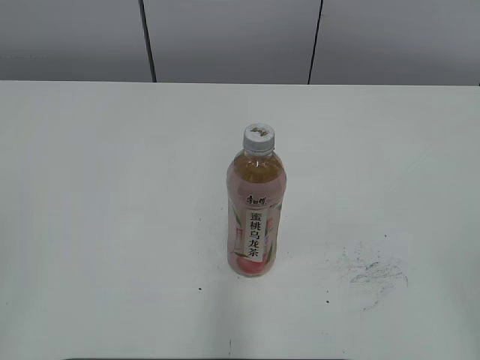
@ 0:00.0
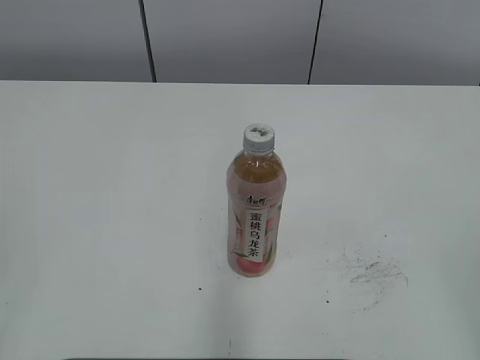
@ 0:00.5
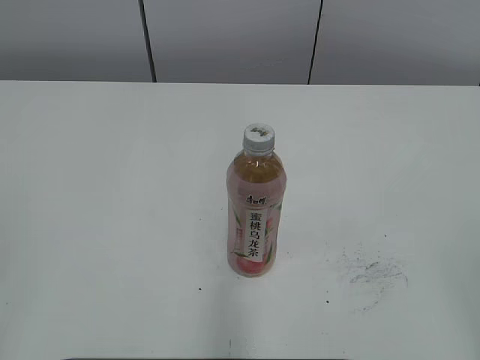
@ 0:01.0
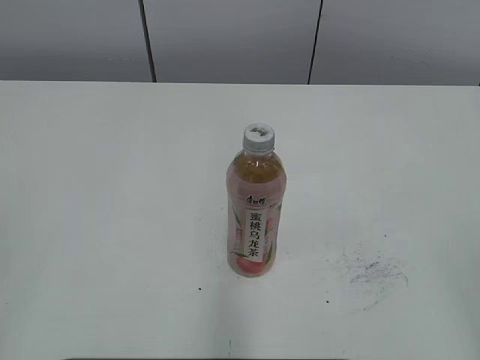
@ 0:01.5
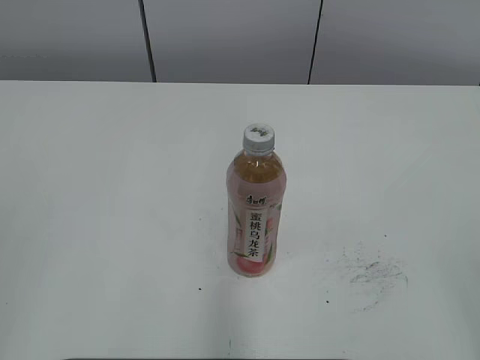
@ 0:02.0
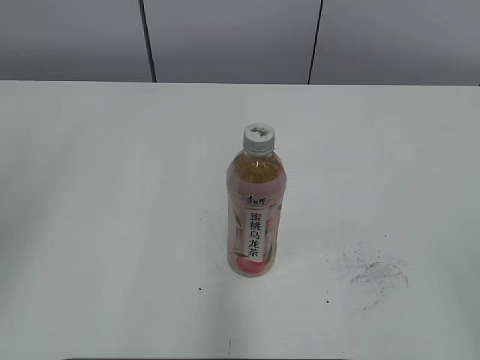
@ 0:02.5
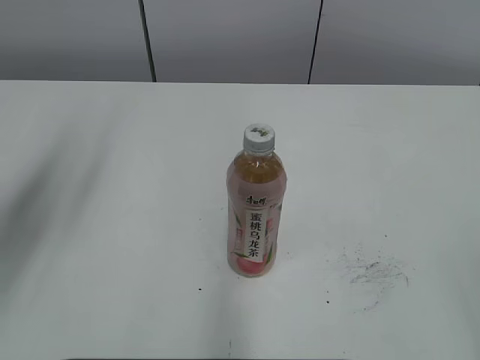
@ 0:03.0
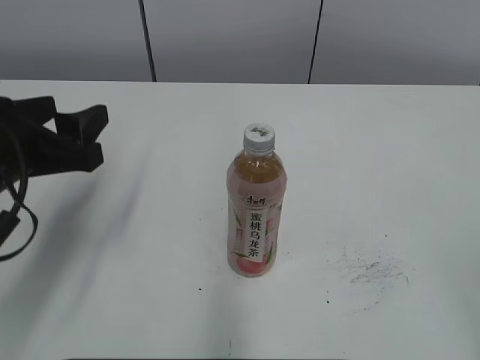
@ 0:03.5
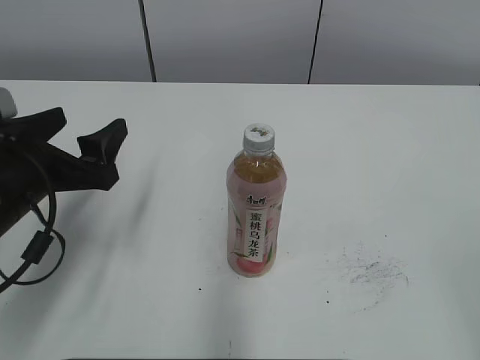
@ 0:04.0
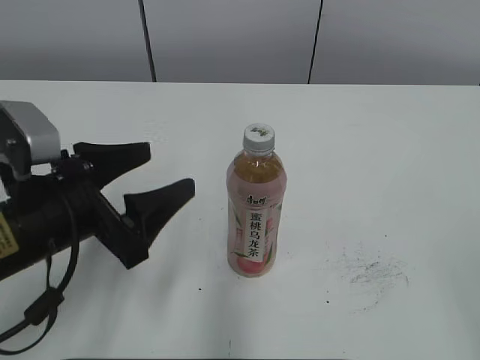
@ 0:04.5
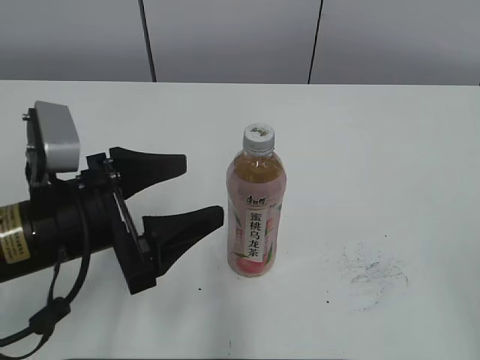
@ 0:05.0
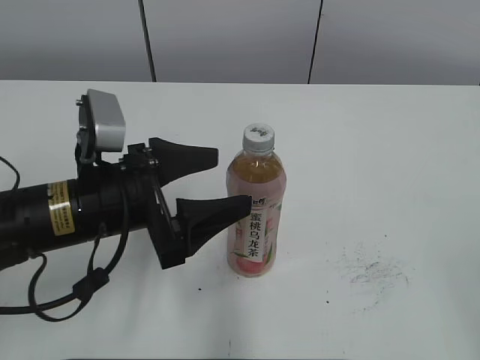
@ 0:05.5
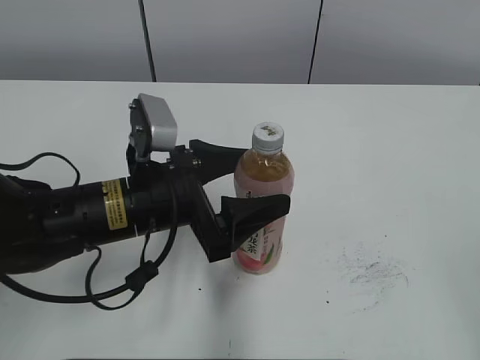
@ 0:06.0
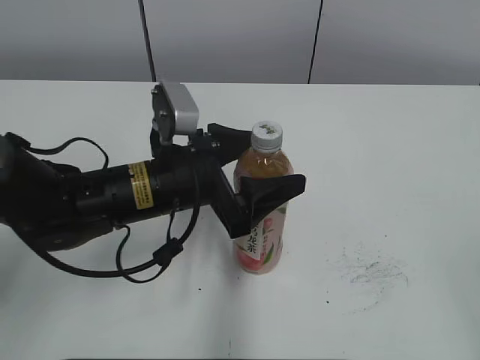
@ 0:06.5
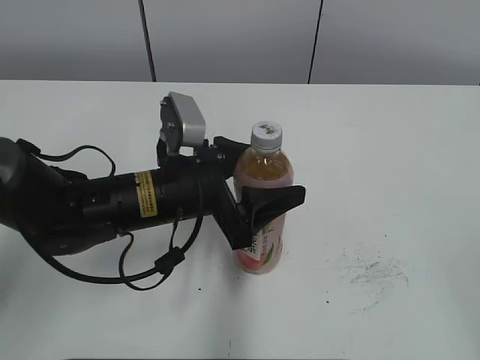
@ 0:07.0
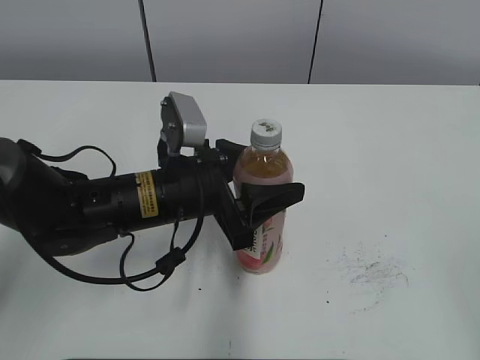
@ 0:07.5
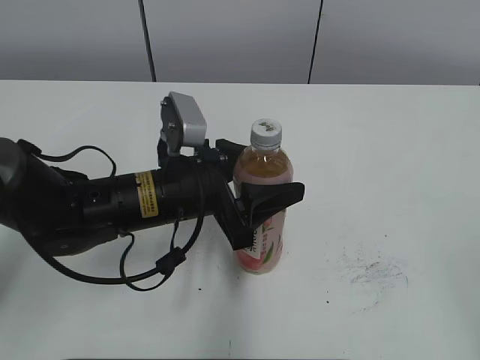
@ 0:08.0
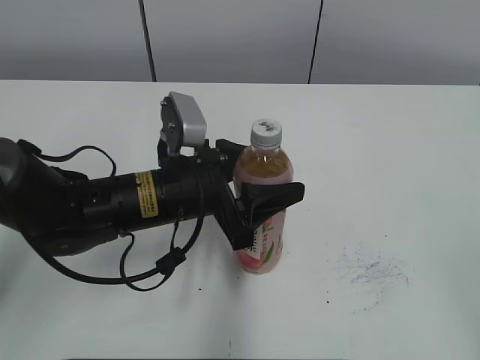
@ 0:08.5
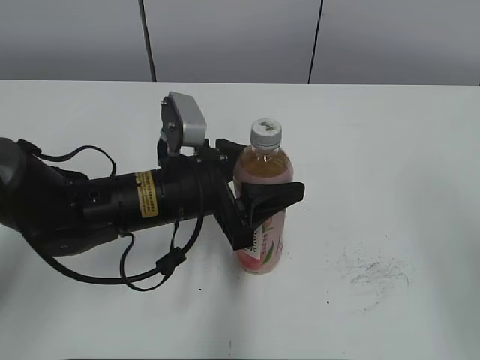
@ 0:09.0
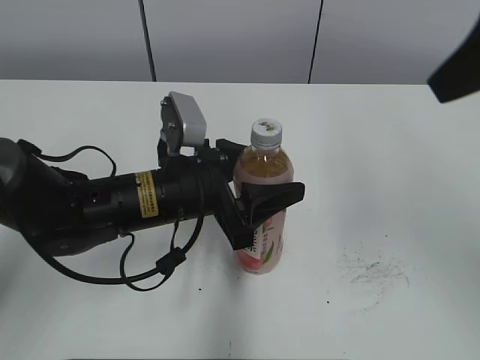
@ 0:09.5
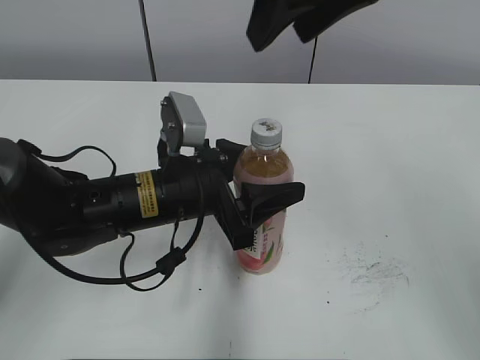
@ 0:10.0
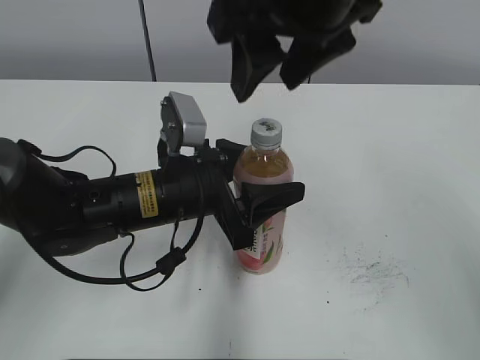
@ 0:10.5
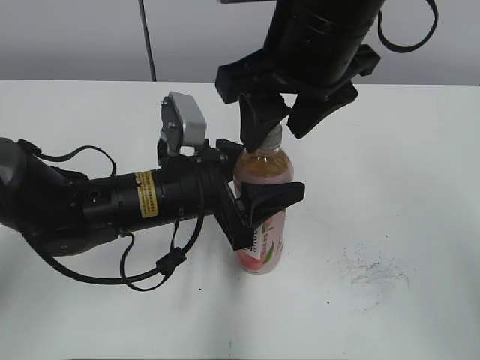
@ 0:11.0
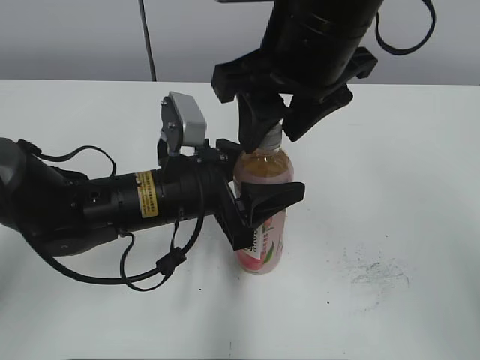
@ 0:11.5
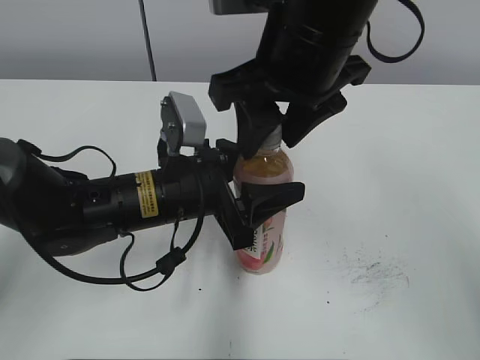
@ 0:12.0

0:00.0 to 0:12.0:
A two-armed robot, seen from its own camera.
Step, 0:00.0 to 0:07.5: Grab the Peach Oolong Tea with the left hand.
0:02.0 to 0:04.0: The left gripper travels forward and downward by some 25 cm, and opens up.
0:04.0 to 0:06.0: The left gripper heads to the right, covering some 10 cm.
0:06.0 to 0:08.0: The left gripper closes its fingers.
0:08.0 to 0:10.0: The right gripper goes some 35 cm forward and to the left, and closes up.
0:10.0 to 0:12.0: The right gripper is displaced downward by about 10 cm.

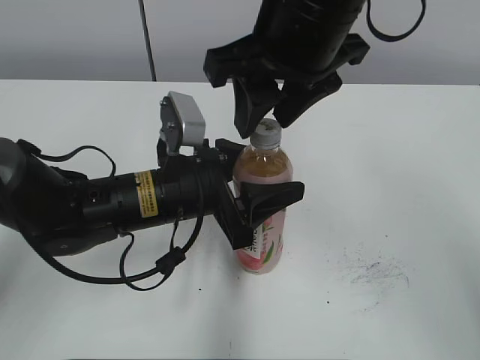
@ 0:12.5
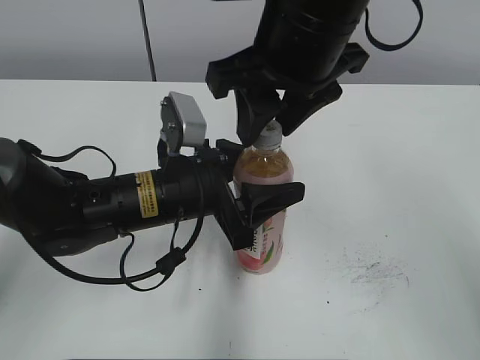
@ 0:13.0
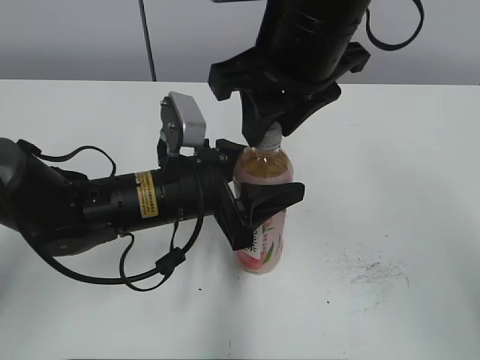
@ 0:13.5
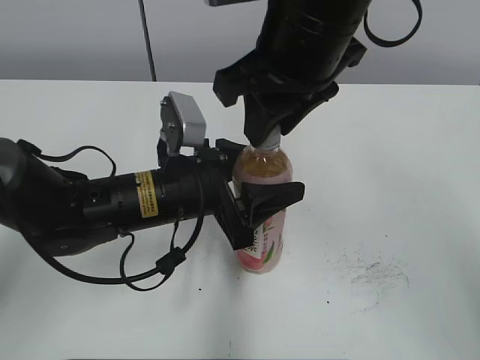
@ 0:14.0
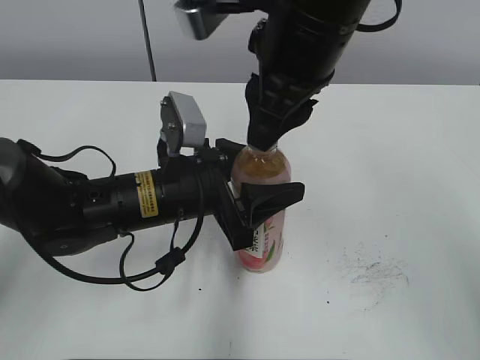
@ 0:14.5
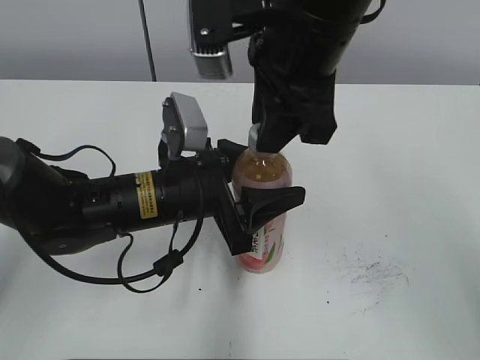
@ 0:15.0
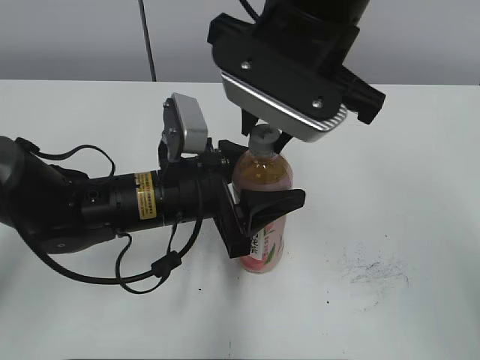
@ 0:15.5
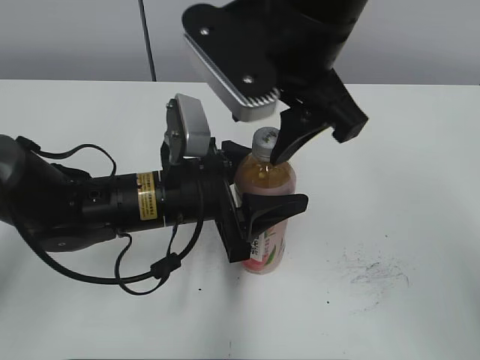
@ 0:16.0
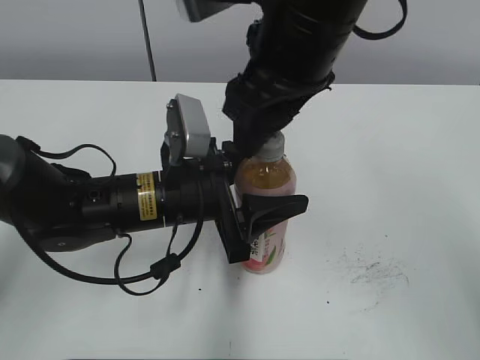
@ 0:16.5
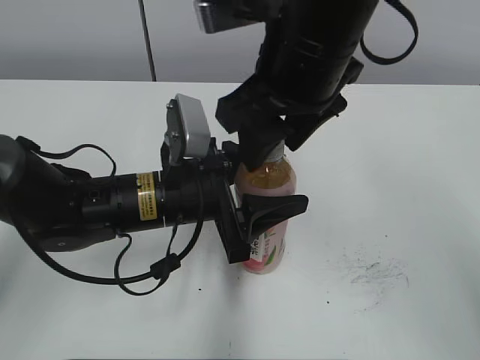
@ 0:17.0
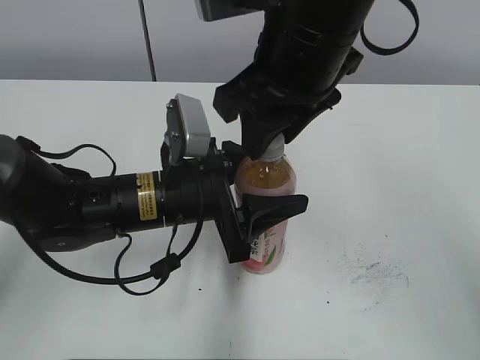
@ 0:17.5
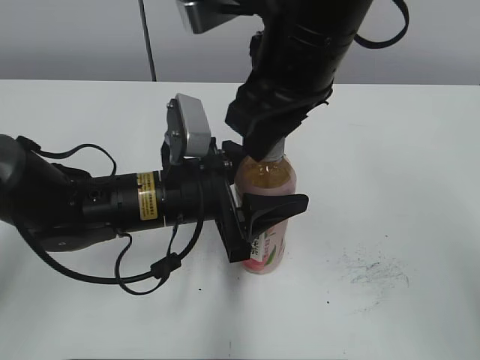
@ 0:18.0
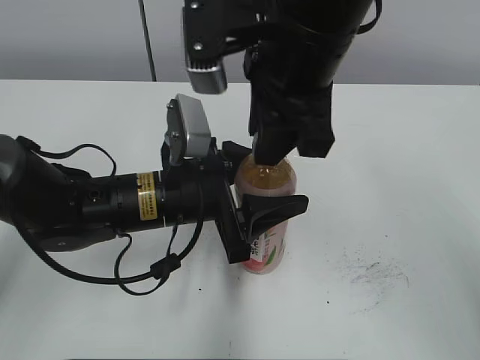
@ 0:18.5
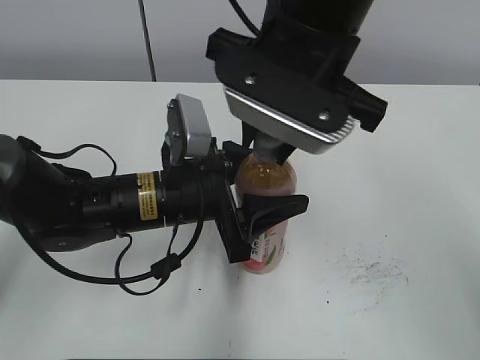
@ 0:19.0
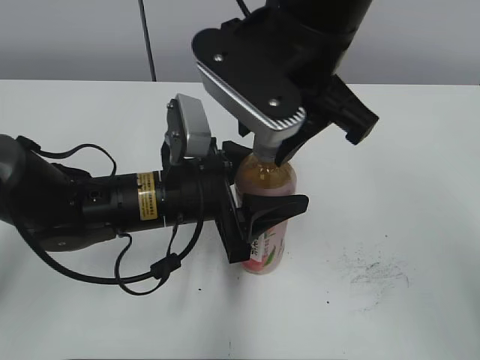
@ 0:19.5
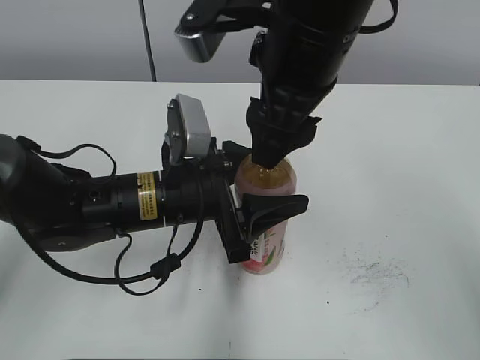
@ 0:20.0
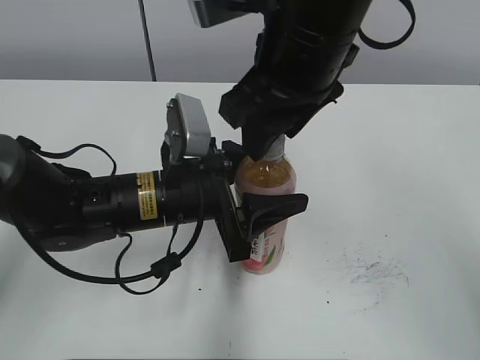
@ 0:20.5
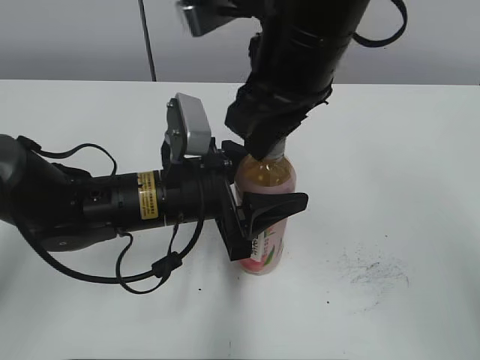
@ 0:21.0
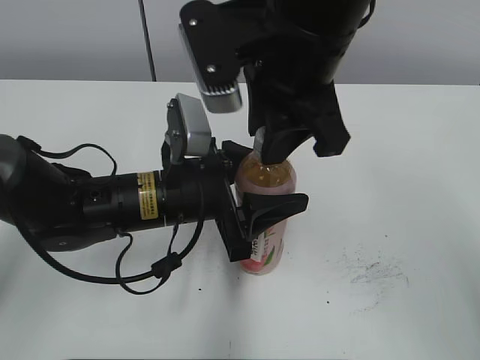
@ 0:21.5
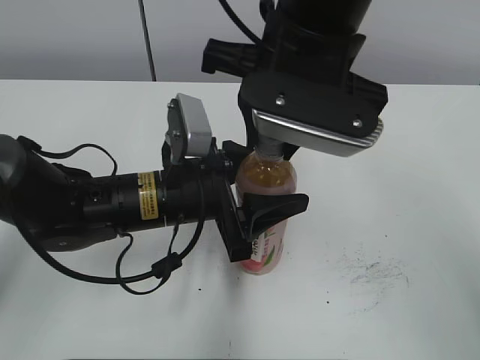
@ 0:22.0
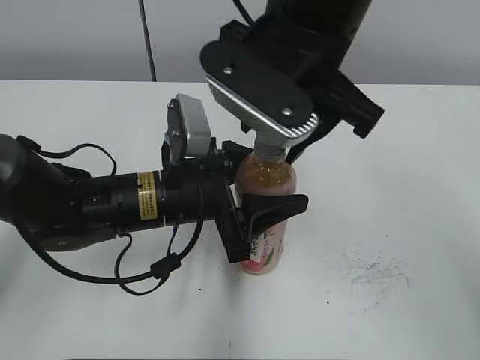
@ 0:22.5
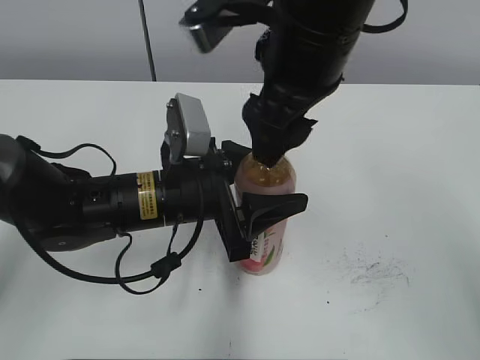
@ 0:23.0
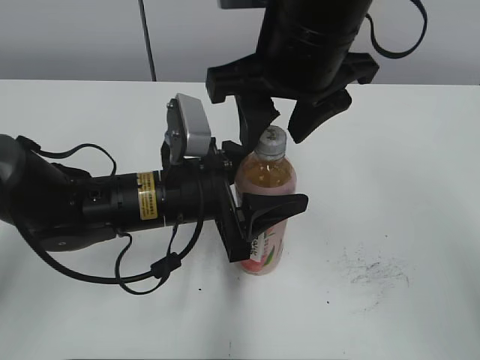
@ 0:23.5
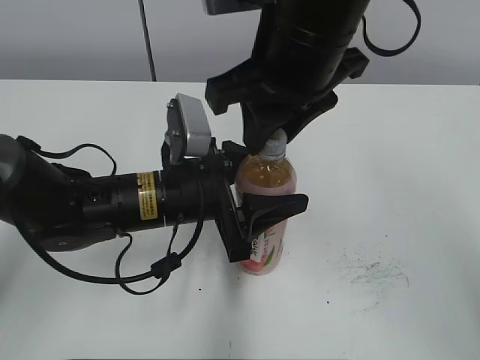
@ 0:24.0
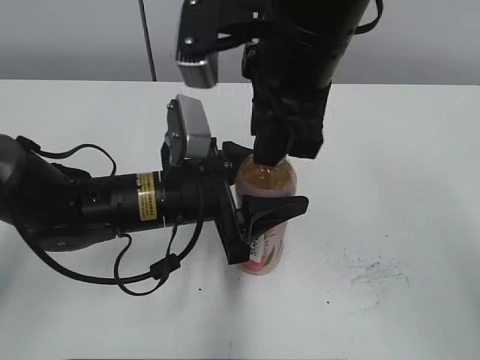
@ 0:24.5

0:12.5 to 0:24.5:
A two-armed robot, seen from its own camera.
0:12.5 to 0:14.5: The right gripper closes up.
0:14.5 to 0:16.5: The right gripper opens.
0:16.5 to 0:18.5: The right gripper closes its fingers.
0:18.5 to 0:20.5: The right gripper opens its fingers.
0:20.5 to 0:22.5: The right gripper closes, then reopens.
0:22.5 to 0:24.5: The right gripper closes its fingers.

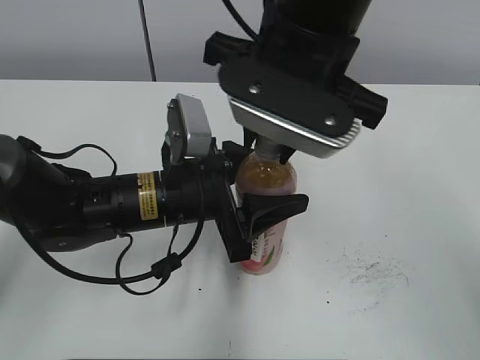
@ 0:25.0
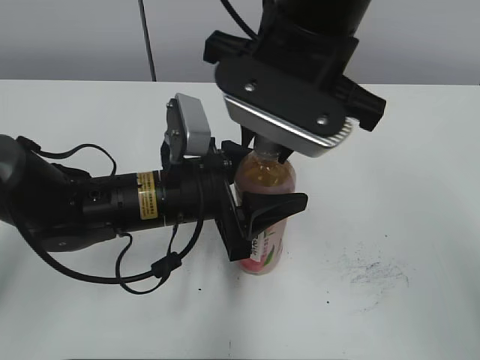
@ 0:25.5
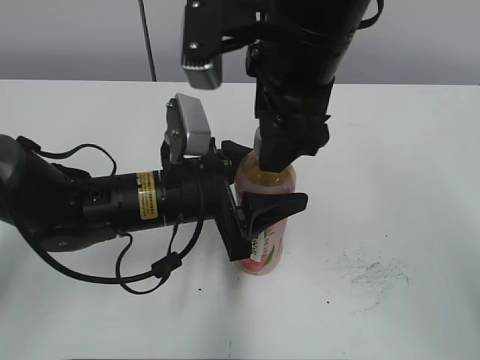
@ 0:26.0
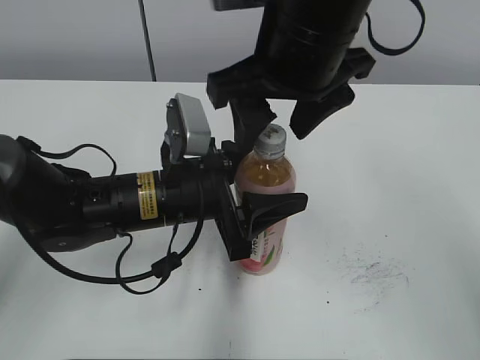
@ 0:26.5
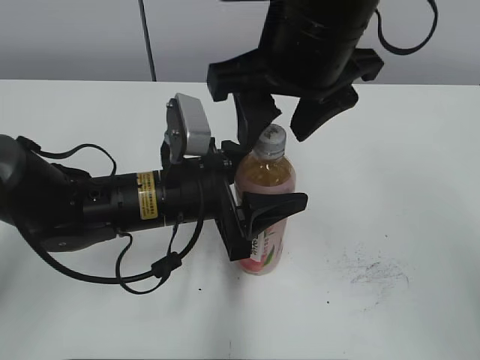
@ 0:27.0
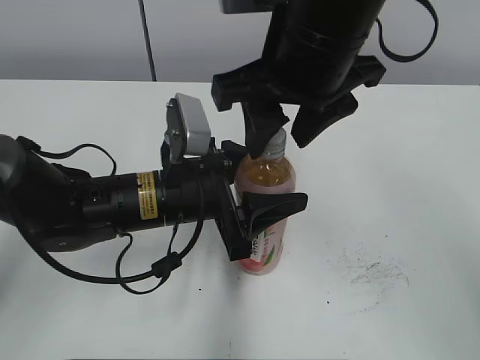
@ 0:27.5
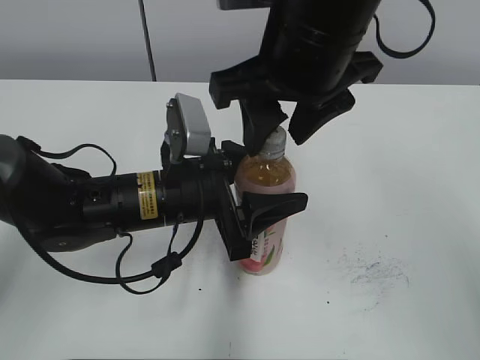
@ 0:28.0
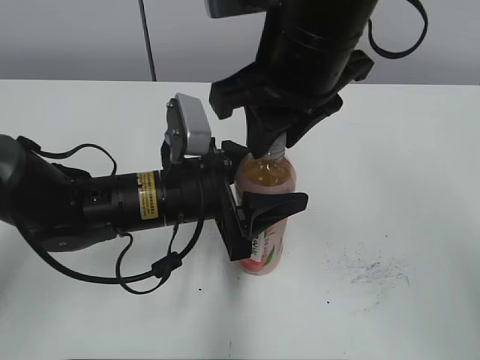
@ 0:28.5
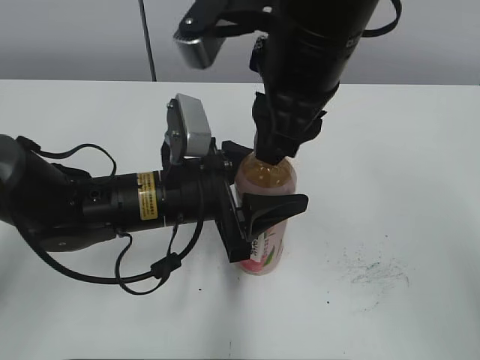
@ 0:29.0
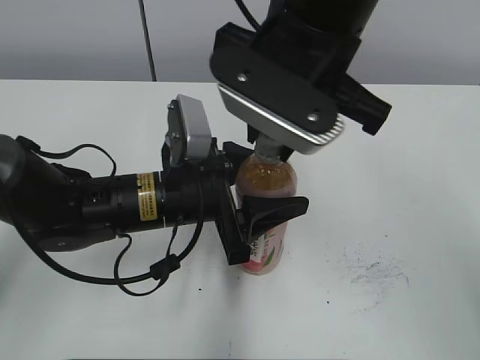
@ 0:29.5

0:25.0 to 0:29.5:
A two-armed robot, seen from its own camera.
0:25.0 to 0:27.0: The right gripper opens up.
0:27.0 to 0:29.5: The right gripper closes its fingers.
